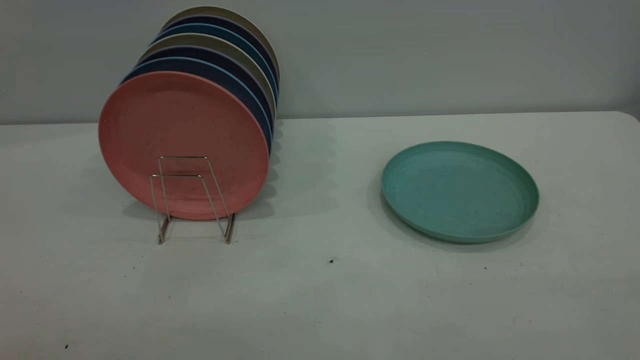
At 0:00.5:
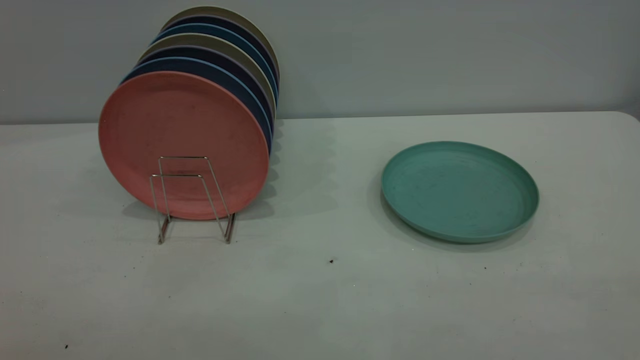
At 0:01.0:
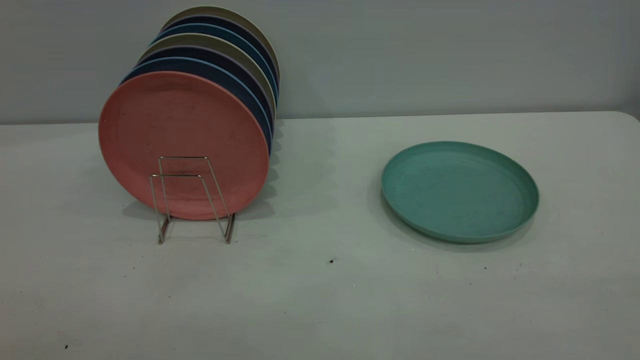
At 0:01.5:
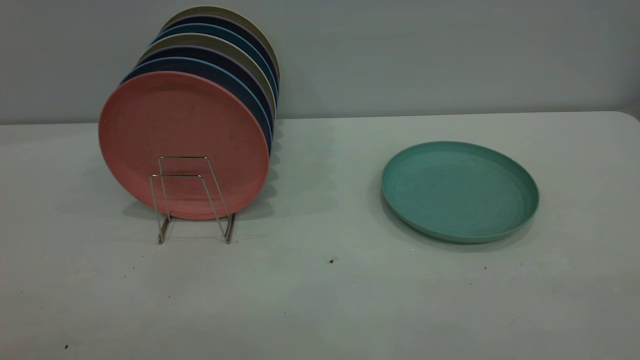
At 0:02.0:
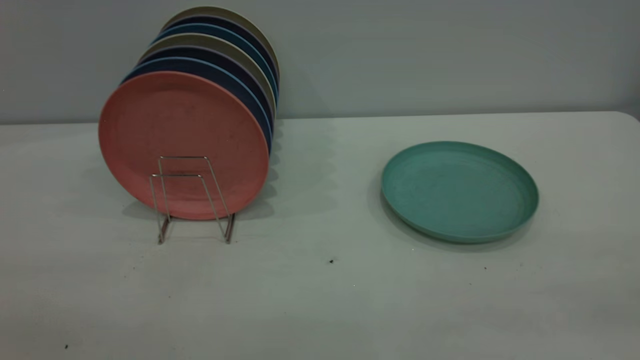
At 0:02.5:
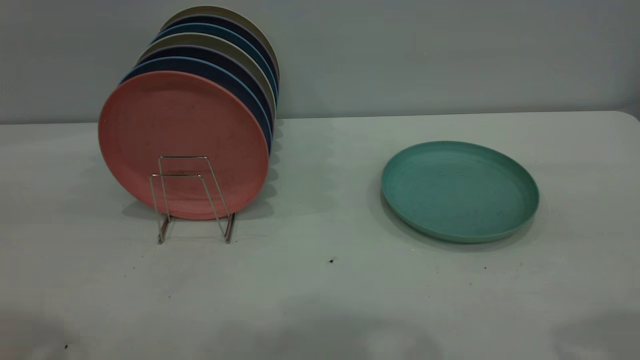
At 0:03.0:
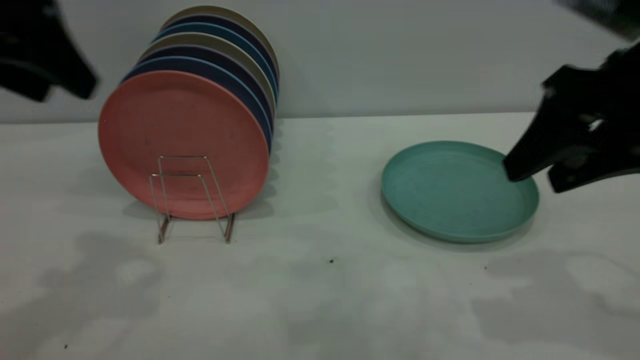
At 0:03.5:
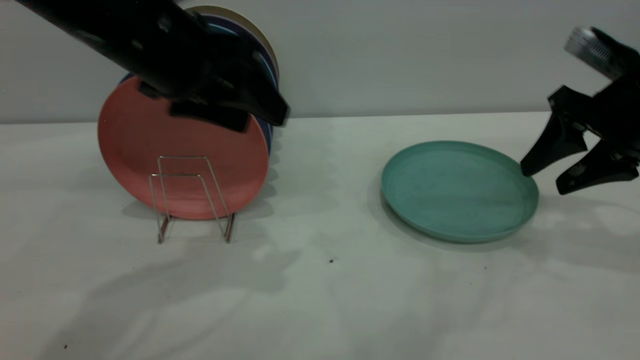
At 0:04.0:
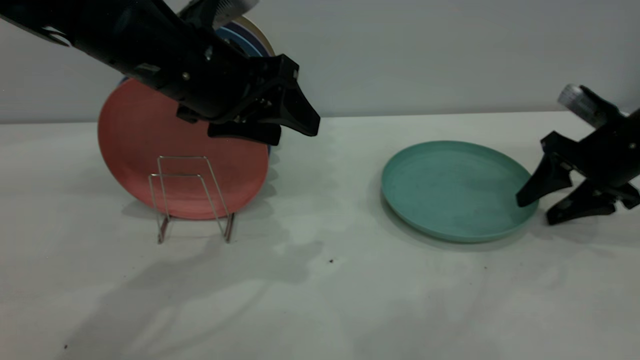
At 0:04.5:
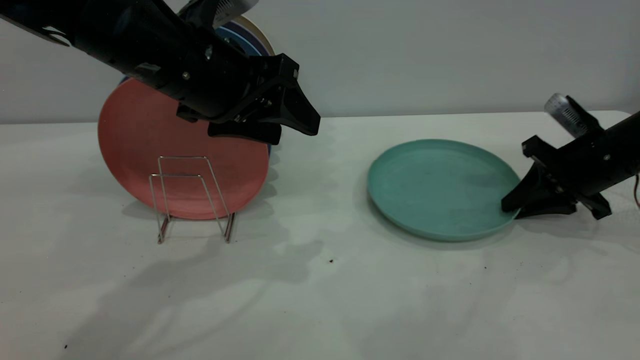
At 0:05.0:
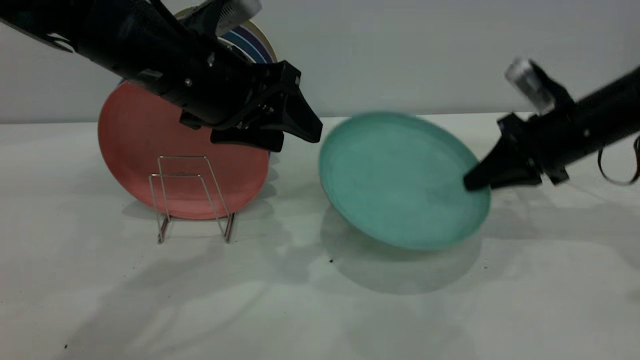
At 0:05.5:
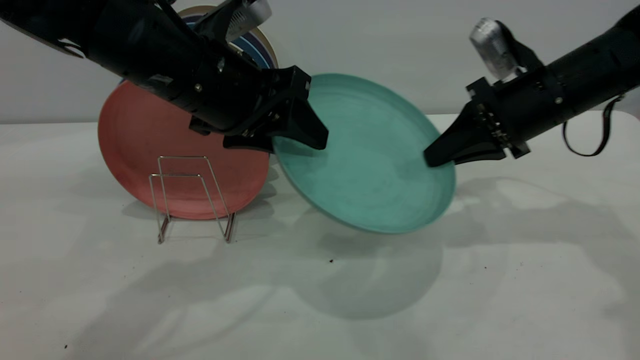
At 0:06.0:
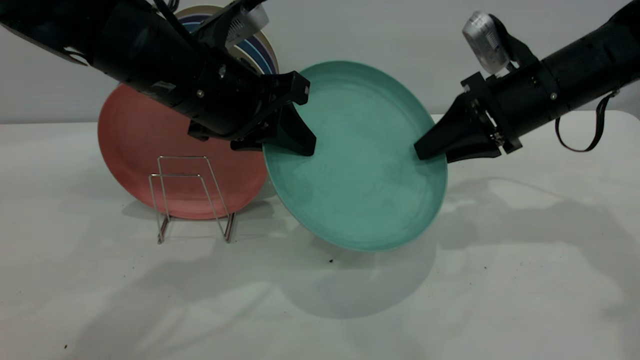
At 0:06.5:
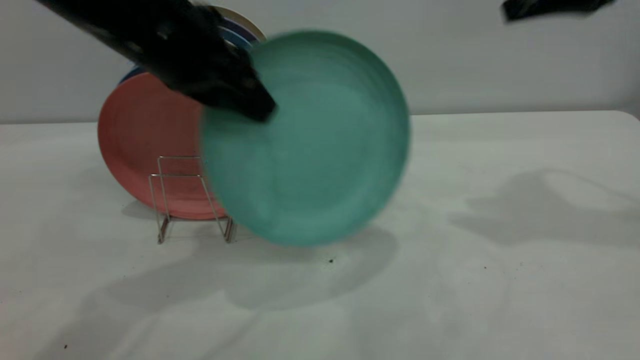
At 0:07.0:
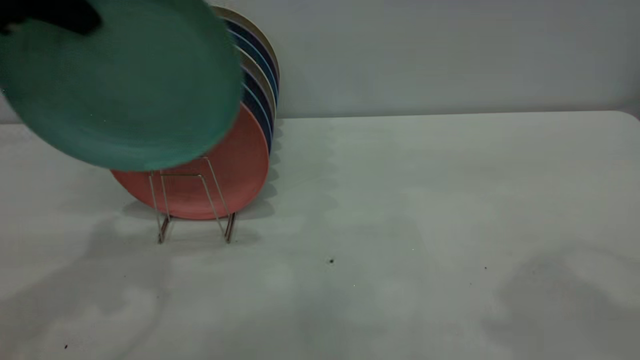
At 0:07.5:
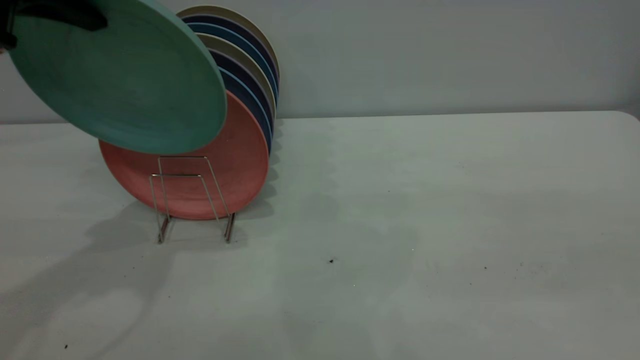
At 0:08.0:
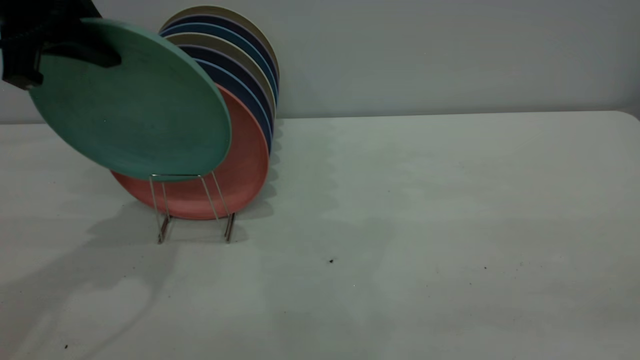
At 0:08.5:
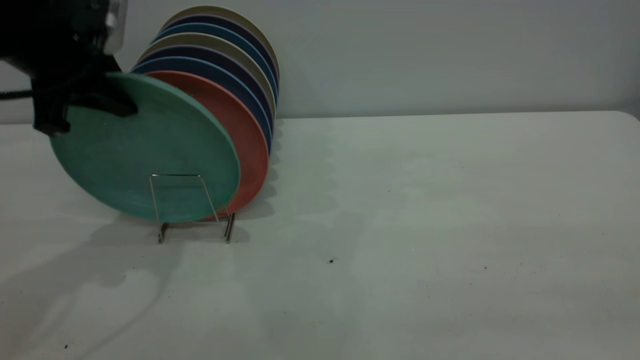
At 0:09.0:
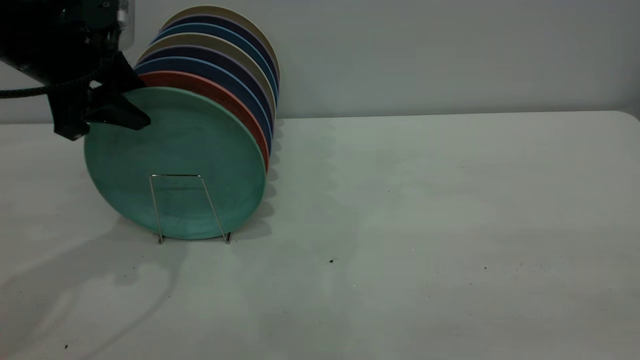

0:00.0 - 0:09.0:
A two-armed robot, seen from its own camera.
Task of the whole recording: the right gripper grasp the green plate, the right gripper pass the green plate to the left gripper, and the left gripper place the green plate on the plate rack.
Step, 0:00.0 - 0:04.5: Pick up the plate with the right gripper.
Step, 0:05.0 - 0:06.5: Pass the plate from the right gripper to the left gripper.
0:02.0 - 0:04.5: The left gripper travels forward, to the right and downward by approximately 40 cm; the right gripper travels forward and downward by roughly 50 cm, and closes its fingers.
0:04.5 - 0:07.0: The left gripper goes roughly 20 cm upward and to the left, and closes its fingers. Meanwhile the right gripper shifts about 35 cm upward and backward, and opens its fingers.
0:07.0 - 0:09.0: The left gripper travels downward by roughly 10 cm, and opens its fingers, while the right gripper is displaced backward by approximately 20 cm.

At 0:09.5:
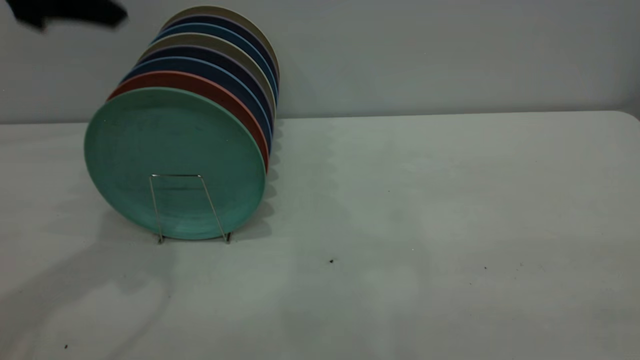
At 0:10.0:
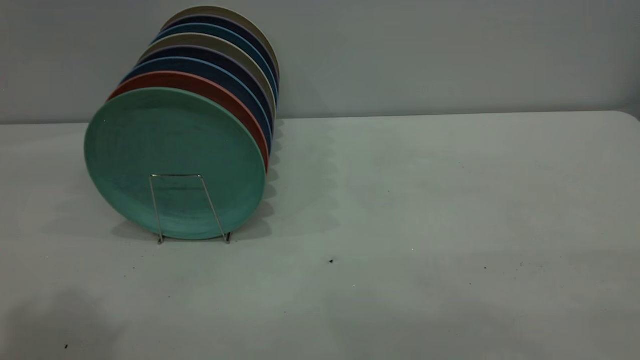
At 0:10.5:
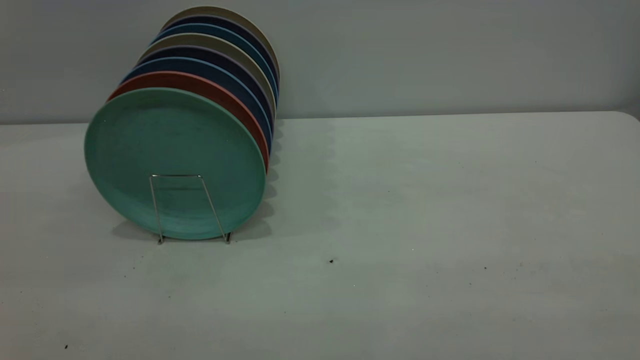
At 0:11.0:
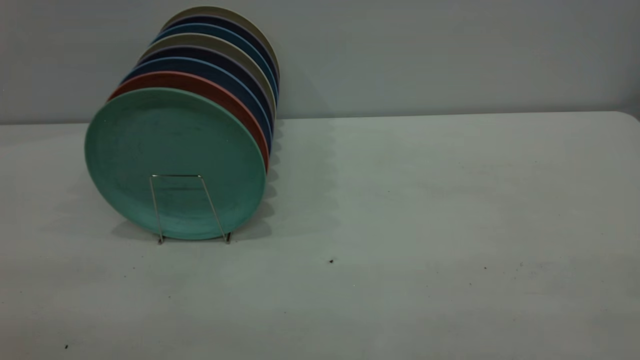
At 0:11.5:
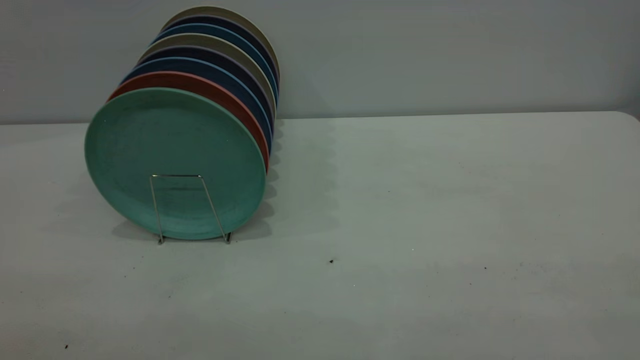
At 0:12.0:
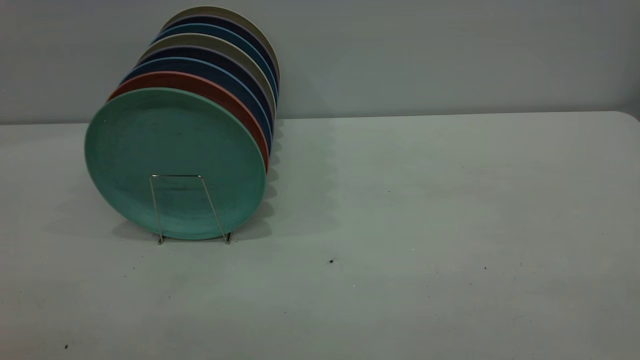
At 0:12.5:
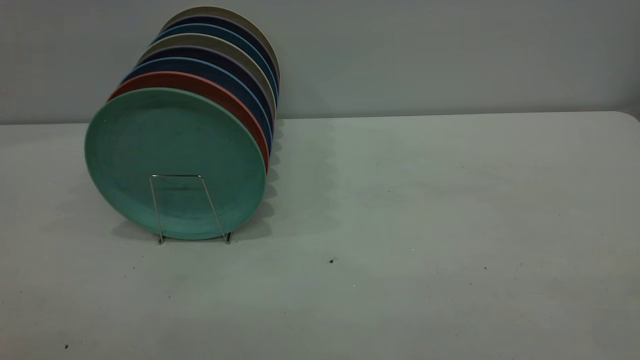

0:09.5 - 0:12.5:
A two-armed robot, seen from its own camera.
Task of the whole recording: the right gripper grasp the green plate, the right gripper pass the green plate to the left gripper, and the left gripper place the green plate on the plate rack.
0:09.5 - 0:11.0: The left gripper is displaced backward by some 30 cm.
